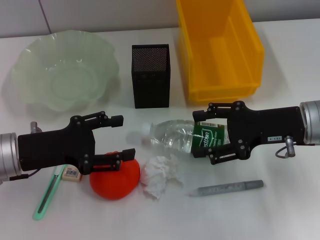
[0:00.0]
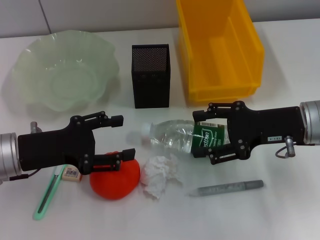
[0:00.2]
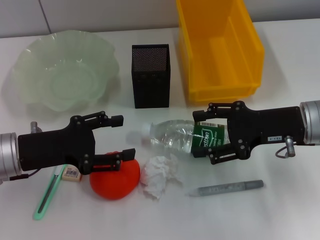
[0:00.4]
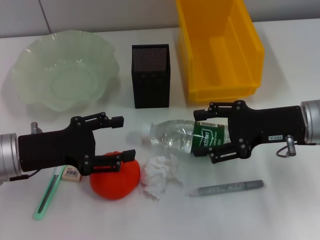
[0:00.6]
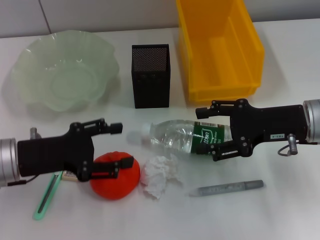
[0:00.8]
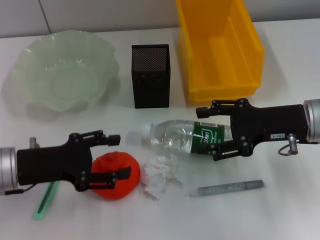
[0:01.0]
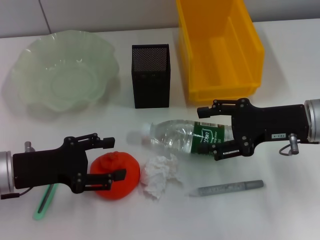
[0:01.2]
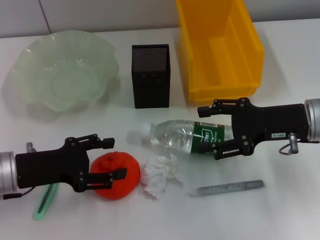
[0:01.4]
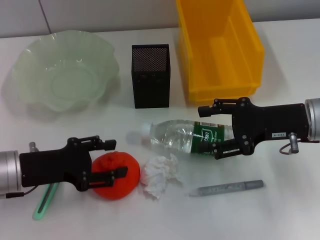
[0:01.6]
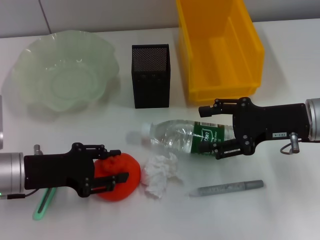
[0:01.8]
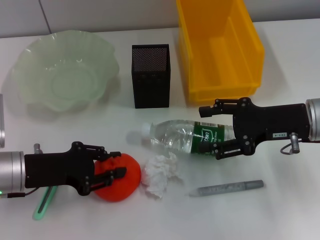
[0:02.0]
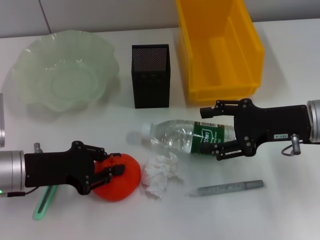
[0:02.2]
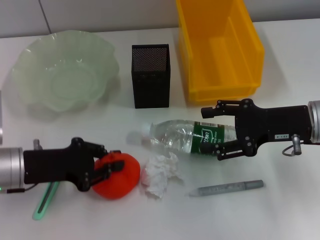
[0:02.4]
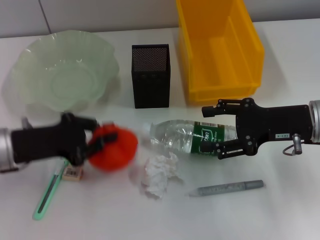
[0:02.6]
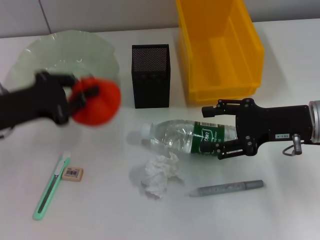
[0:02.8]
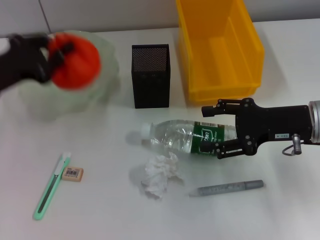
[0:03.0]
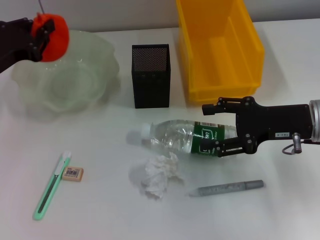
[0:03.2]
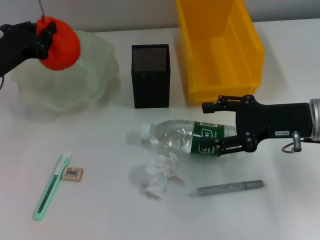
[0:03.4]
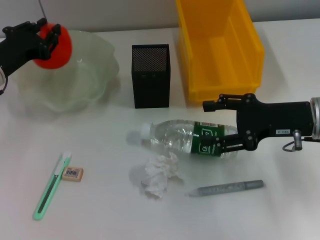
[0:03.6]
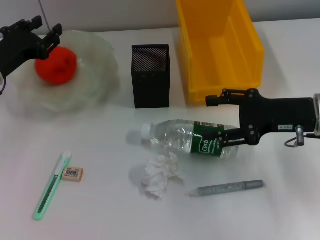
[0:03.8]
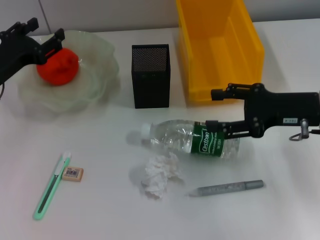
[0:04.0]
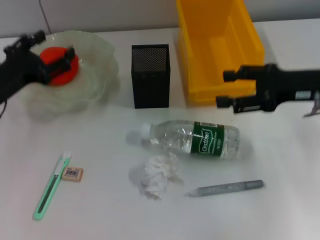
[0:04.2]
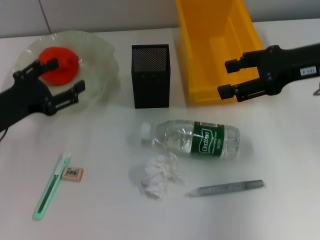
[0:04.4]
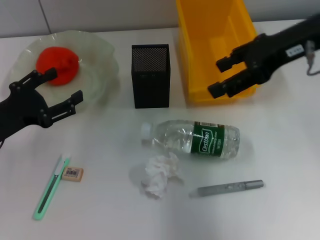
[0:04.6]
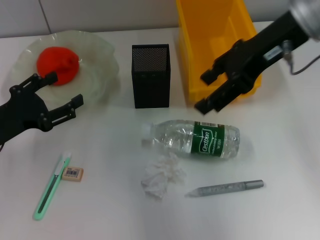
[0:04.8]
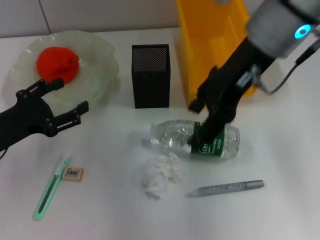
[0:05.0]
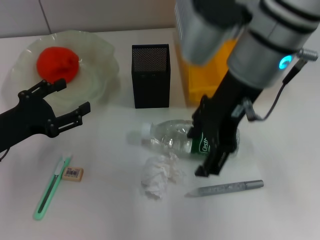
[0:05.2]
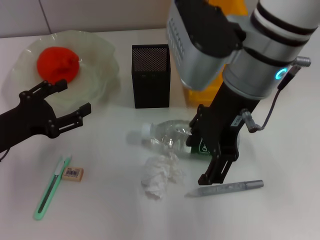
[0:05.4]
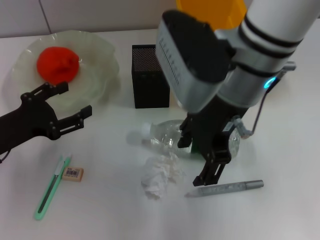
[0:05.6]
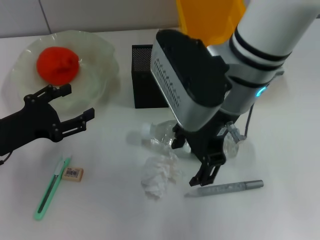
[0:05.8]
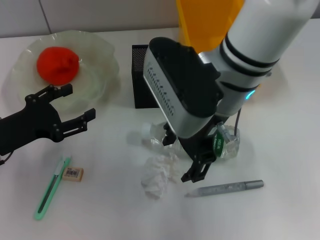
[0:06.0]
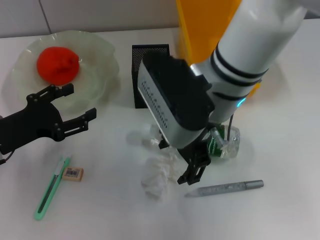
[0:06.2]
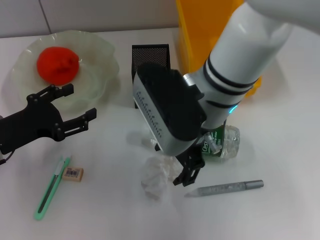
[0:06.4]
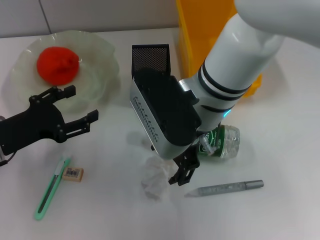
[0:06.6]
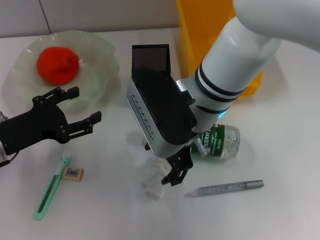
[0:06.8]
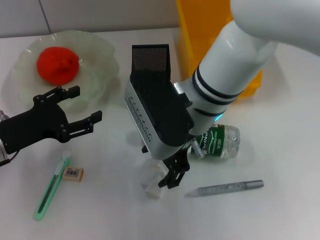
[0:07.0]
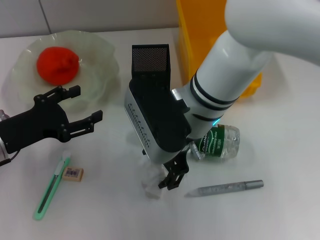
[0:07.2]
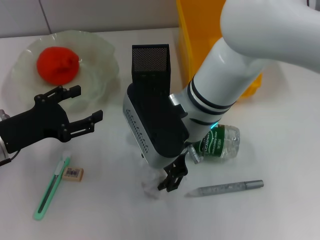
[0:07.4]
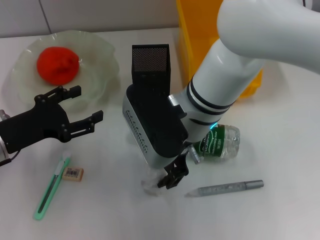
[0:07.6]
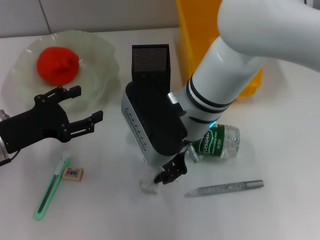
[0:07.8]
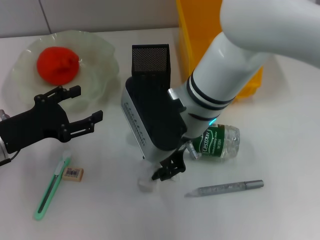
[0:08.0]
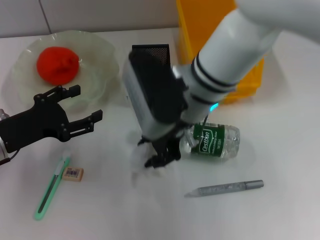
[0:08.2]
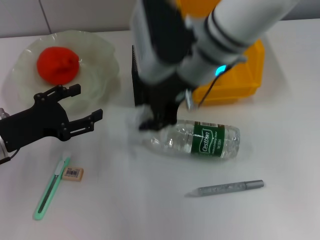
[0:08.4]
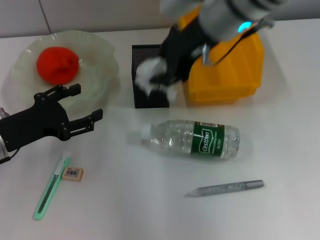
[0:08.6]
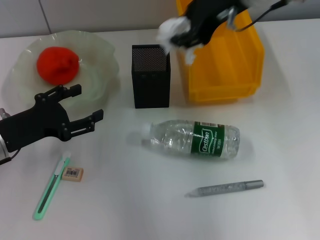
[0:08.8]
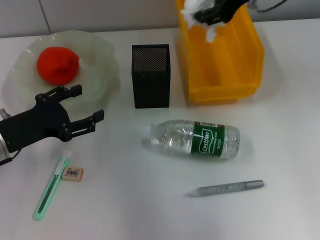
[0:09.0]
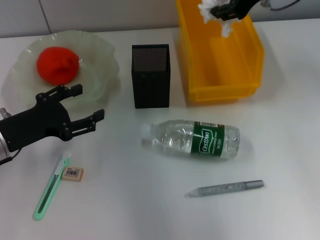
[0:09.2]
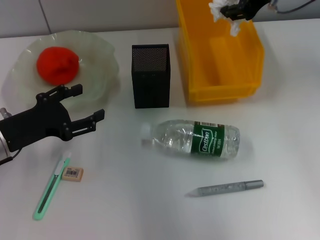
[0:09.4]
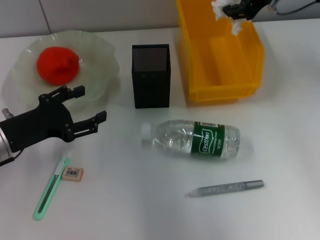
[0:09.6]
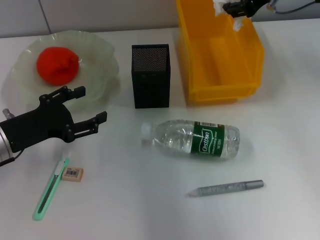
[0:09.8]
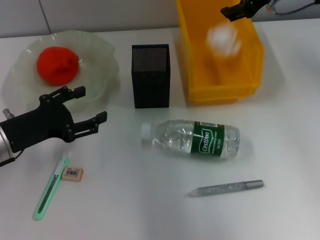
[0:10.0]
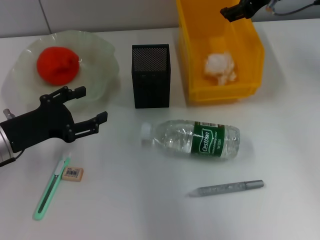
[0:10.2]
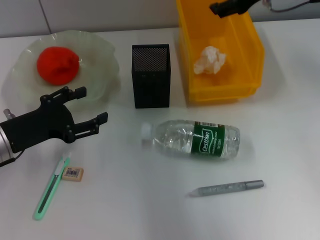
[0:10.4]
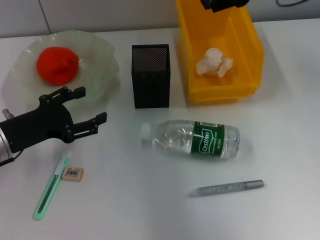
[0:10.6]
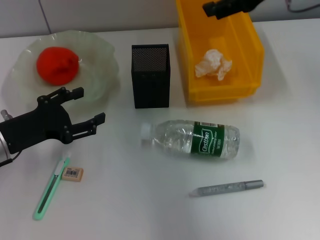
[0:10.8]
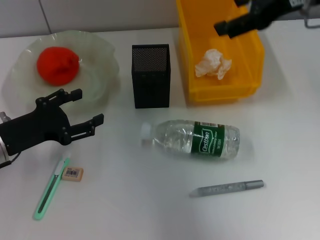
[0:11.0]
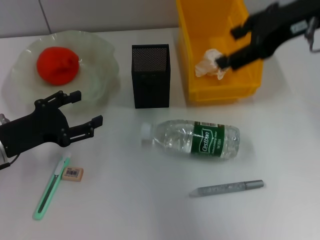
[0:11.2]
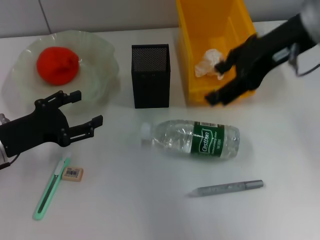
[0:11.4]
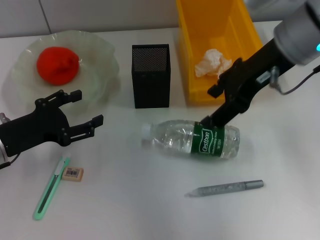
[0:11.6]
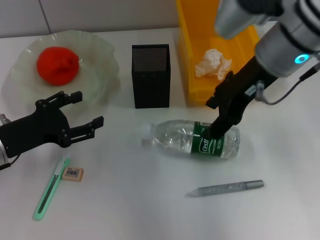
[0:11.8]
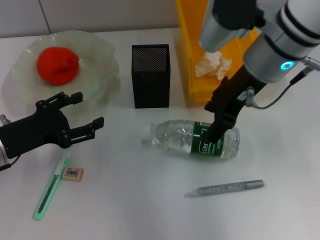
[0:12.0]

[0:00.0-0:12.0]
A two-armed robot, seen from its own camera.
Step, 0:00.0 to 0:02.2: Grab the orange with the left hand.
Step, 0:02.4 to 0:03.8: Place the orange into the fruit bowl with the left hand.
Step, 0:04.0 to 0:07.8: Grab the paper ball with the right hand.
Step, 0:08.0 to 0:10.8: Place the paper ball into the trash can with the right hand.
0:00.0 to 0:01.6: There are only small adjustments of the grippers.
0:01.6 to 0:03.0: The left gripper goes about 10 cm upward and forward, and closes.
0:03.0 to 0:04.4: The left gripper moves approximately 5 cm, and opens; the right gripper is displaced upward by approximately 10 cm.
0:04.4 to 0:06.0: The right gripper goes about 20 cm to the left.
0:06.0 to 0:07.6: The right gripper is displaced downward by roughly 5 cm.
0:07.6 to 0:09.0: The right gripper moves upward, to the right and forward, approximately 20 cm, and closes up.
0:09.0 to 0:10.4: The right gripper opens.
0:10.4 to 0:12.0: The right gripper is displaced to the left and backward by some 10 cm.

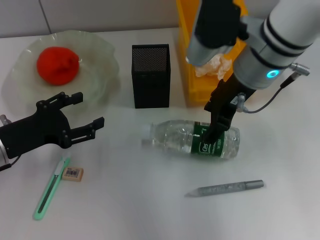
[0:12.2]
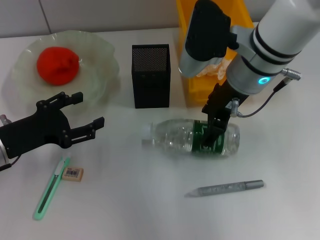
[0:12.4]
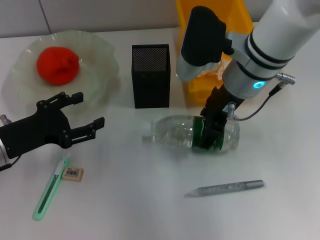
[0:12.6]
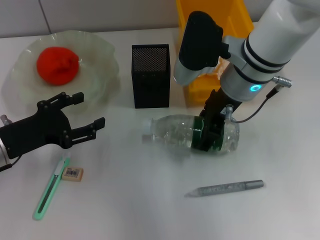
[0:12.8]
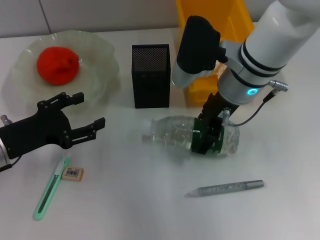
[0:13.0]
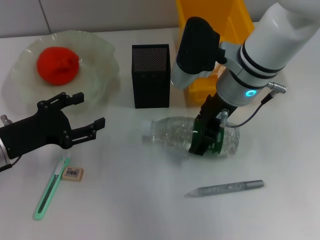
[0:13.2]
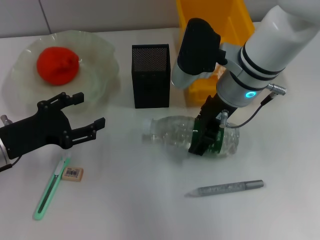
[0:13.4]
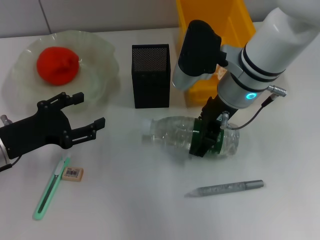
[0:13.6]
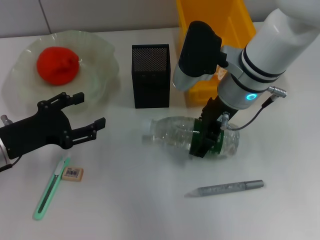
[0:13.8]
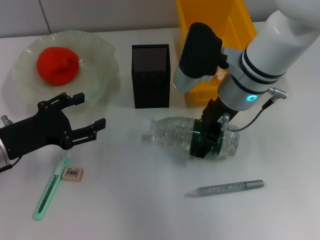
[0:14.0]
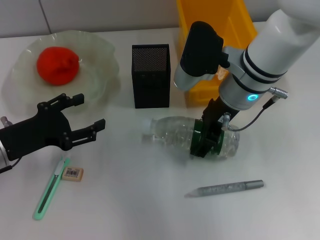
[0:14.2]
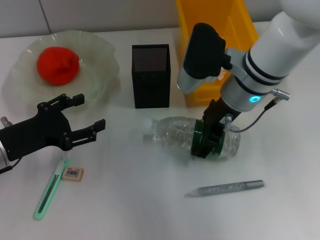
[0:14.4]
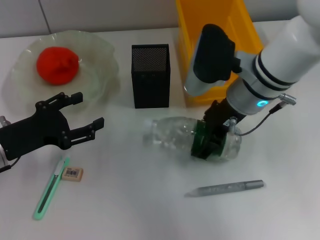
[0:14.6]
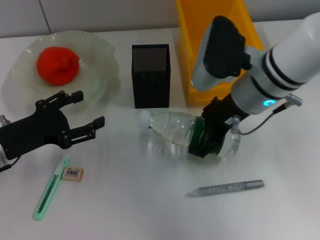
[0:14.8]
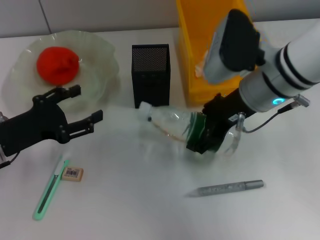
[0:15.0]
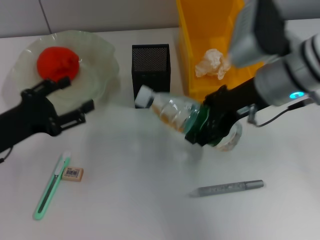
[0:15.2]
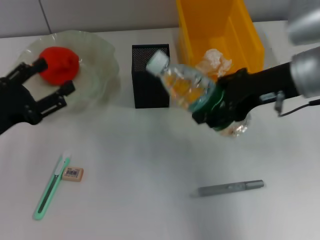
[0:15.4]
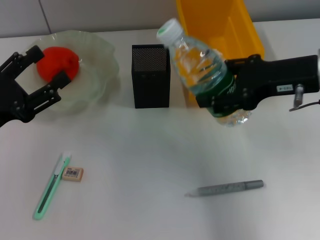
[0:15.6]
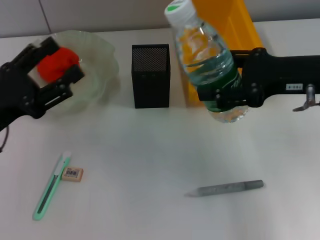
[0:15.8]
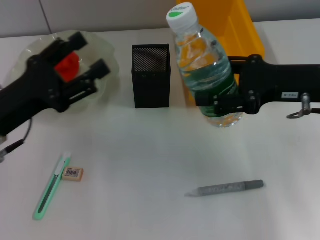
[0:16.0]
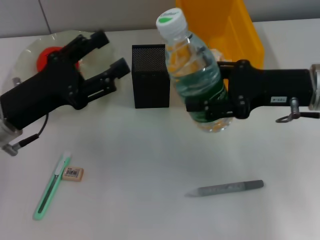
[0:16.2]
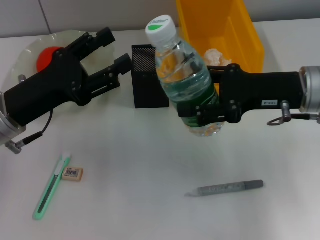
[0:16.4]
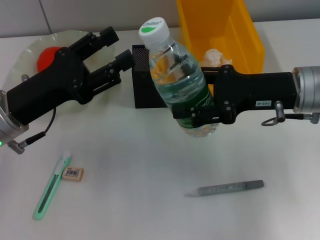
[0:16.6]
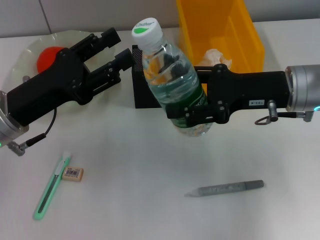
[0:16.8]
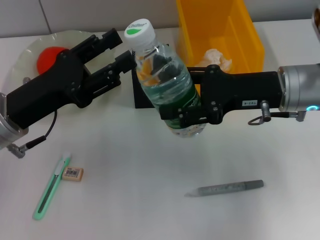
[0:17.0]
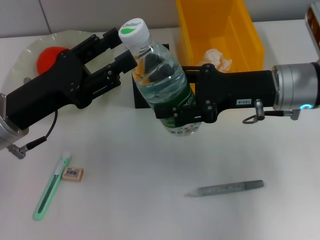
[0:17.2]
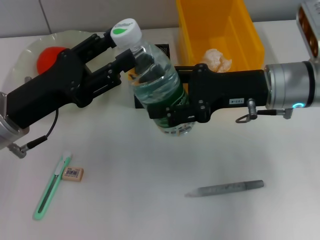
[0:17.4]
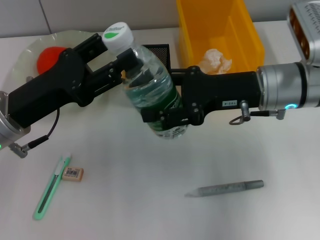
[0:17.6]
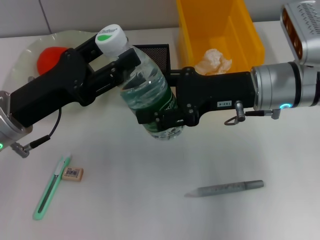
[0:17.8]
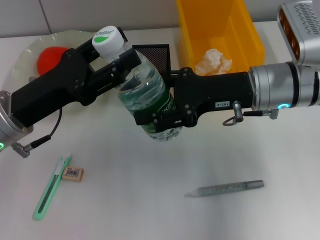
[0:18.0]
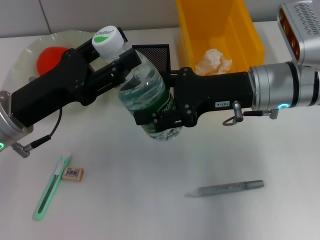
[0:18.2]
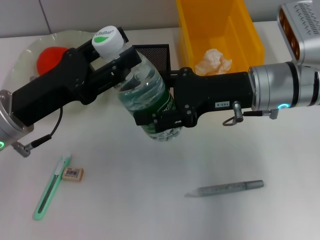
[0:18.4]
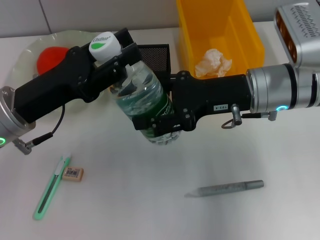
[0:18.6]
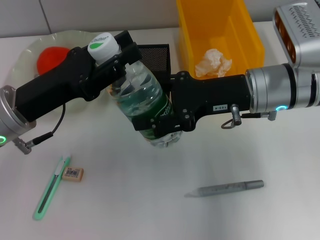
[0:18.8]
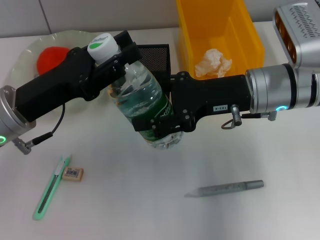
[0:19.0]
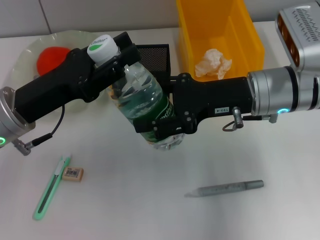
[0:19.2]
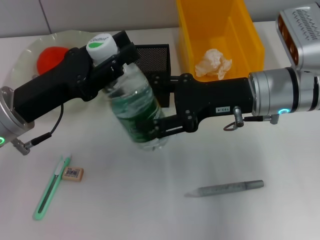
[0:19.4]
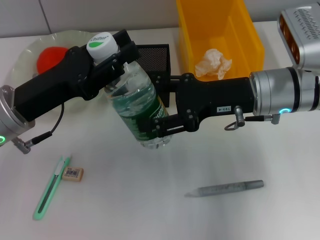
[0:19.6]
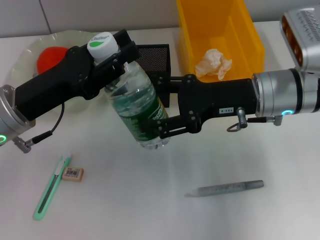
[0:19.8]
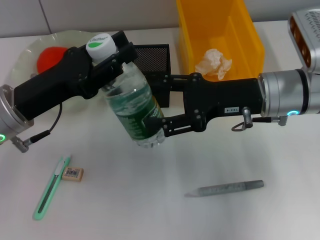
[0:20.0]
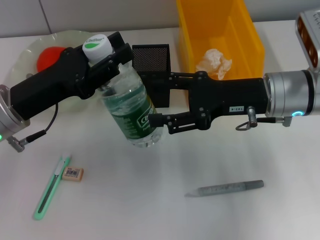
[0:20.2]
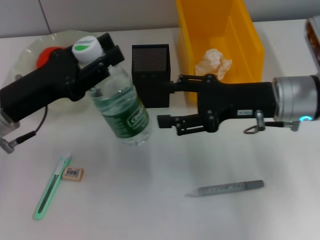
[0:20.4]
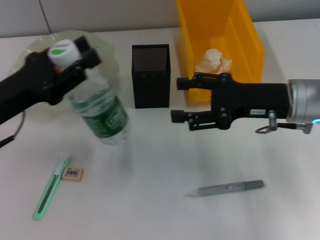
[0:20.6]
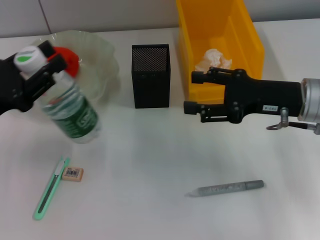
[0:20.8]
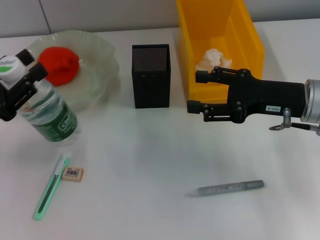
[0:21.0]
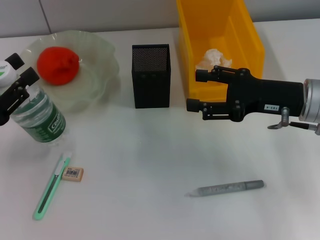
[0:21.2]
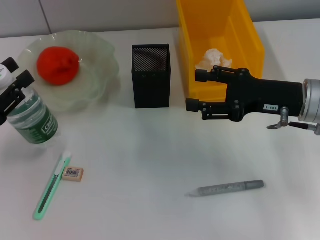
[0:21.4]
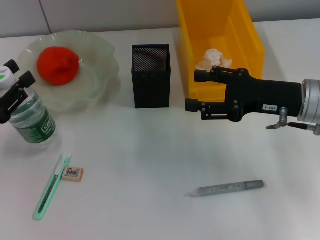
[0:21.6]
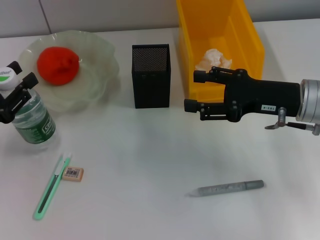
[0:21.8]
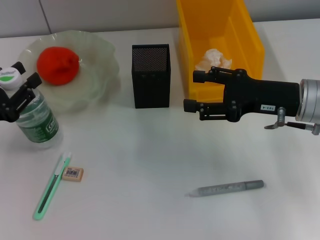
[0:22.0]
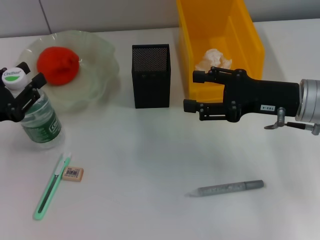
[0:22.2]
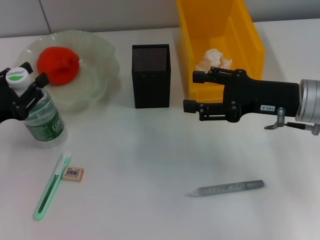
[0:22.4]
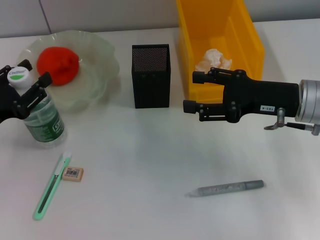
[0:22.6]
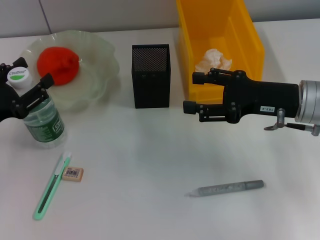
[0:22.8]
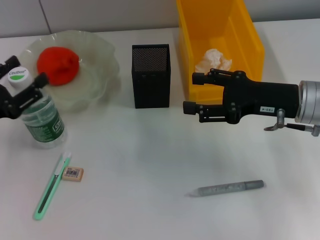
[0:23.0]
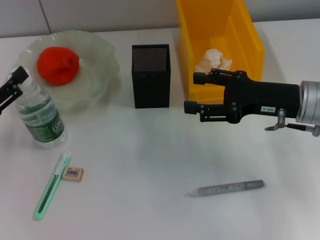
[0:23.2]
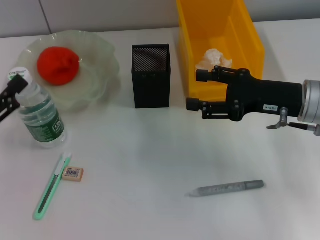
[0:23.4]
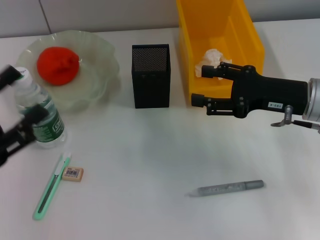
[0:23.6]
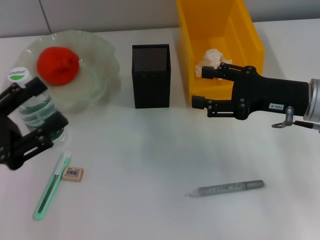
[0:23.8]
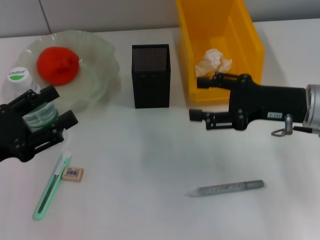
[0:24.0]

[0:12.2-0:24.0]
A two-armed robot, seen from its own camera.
Step, 0:12.2 to 0:14.2: Grab the water bottle with the right hand.
Step, 0:14.4 to 0:20.0: Pass the water bottle from the right hand to the left hand.
Step, 0:20.2 to 0:22.4: Place the water bottle on the table with the left hand.
0:12.2 to 0:13.6: The grippers stay close to where they were, moving slightly.
0:13.6 to 0:15.2: The right gripper heads to the right, covering approximately 5 cm.
0:15.2 to 0:16.6: The right gripper changes place by roughly 5 cm, while the left gripper is displaced to the right by some 5 cm.
0:16.6 to 0:18.2: The right gripper changes place by about 5 cm.
0:18.2 to 0:19.6: The left gripper closes up.
0:19.6 to 0:21.0: The left gripper moves to the left, about 10 cm. Meanwhile the right gripper is displaced to the right by some 5 cm.
0:21.0 to 0:22.6: There are only small adjustments of the grippers.
0:22.6 to 0:24.0: The left gripper ends up roughly 5 cm from where it was, and opens.
